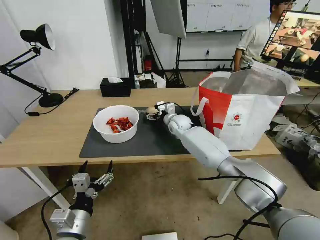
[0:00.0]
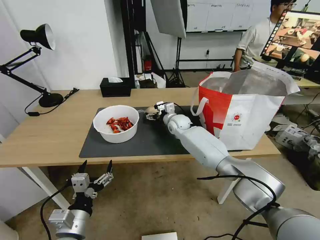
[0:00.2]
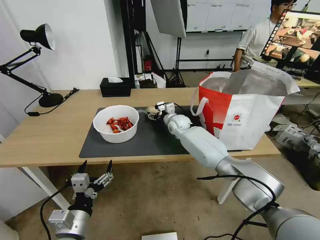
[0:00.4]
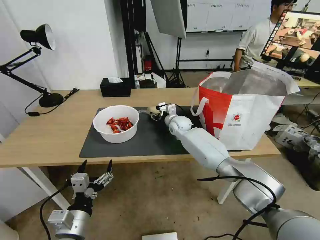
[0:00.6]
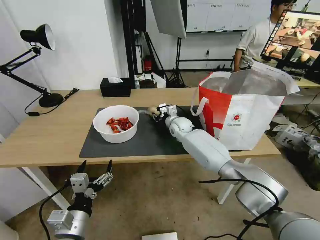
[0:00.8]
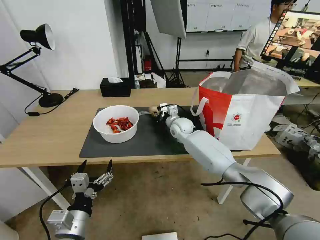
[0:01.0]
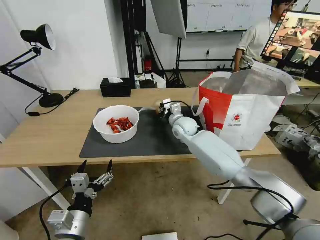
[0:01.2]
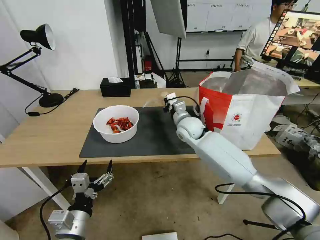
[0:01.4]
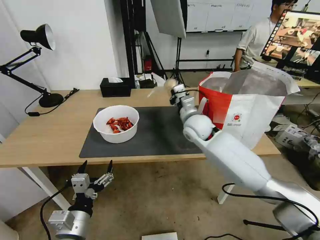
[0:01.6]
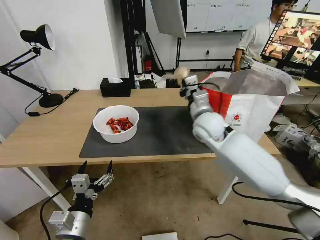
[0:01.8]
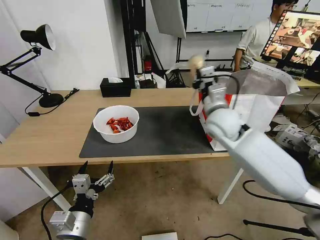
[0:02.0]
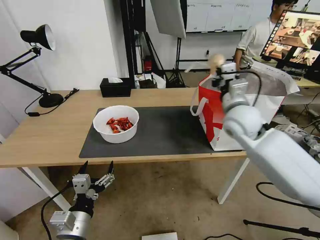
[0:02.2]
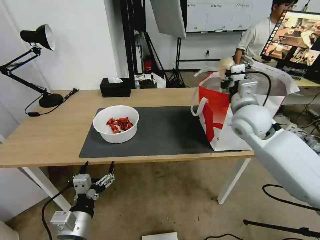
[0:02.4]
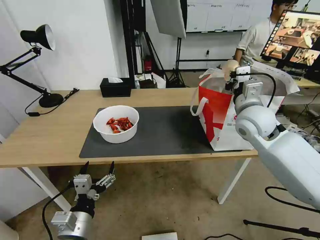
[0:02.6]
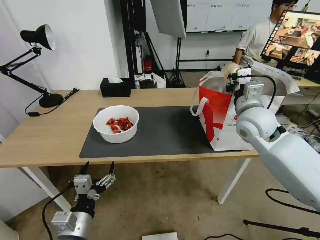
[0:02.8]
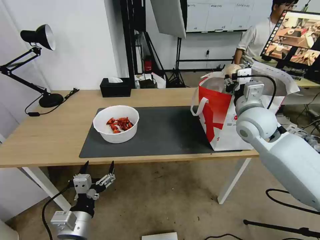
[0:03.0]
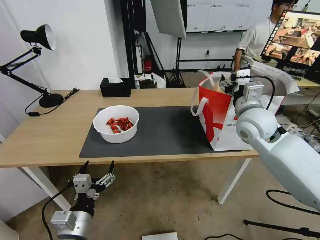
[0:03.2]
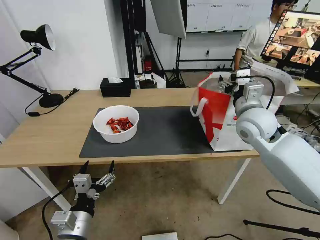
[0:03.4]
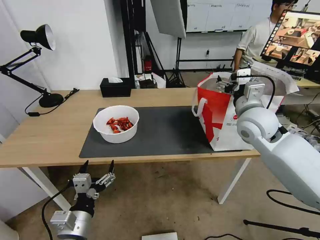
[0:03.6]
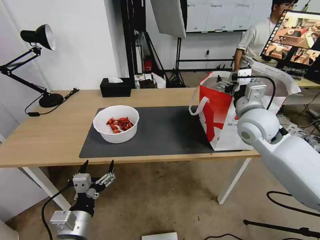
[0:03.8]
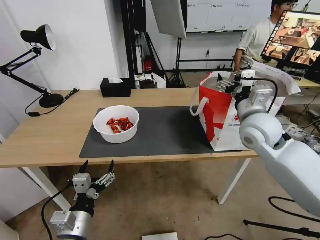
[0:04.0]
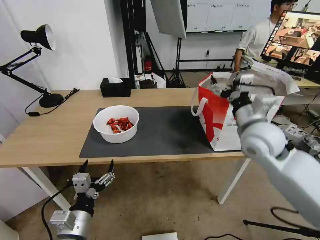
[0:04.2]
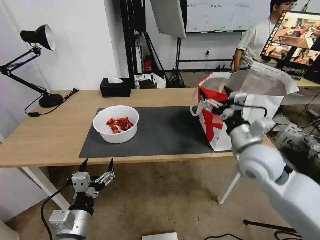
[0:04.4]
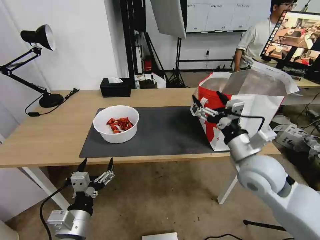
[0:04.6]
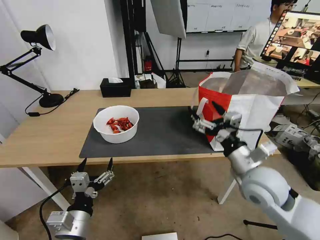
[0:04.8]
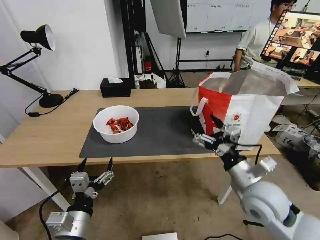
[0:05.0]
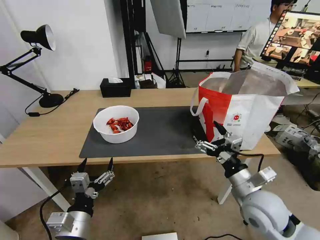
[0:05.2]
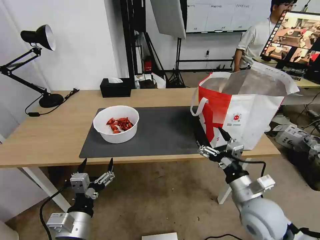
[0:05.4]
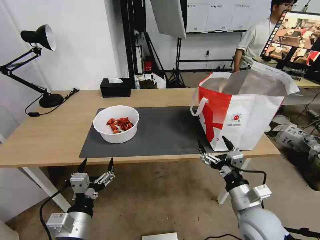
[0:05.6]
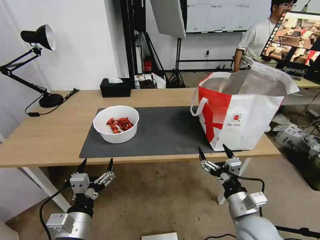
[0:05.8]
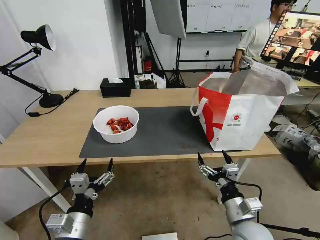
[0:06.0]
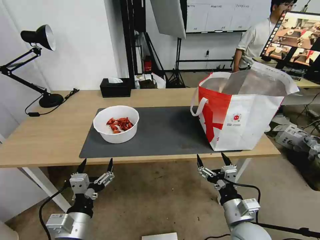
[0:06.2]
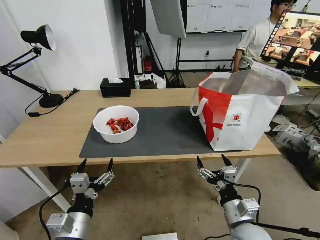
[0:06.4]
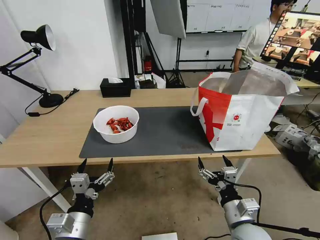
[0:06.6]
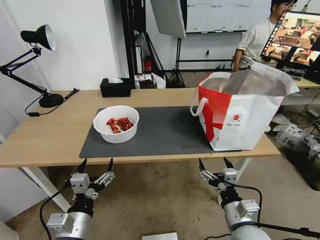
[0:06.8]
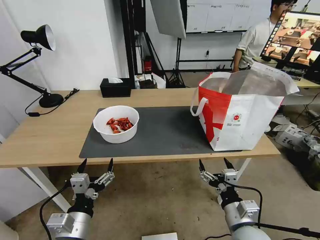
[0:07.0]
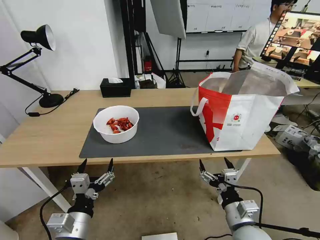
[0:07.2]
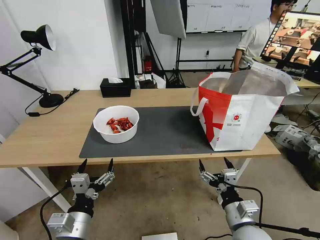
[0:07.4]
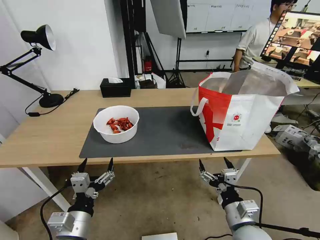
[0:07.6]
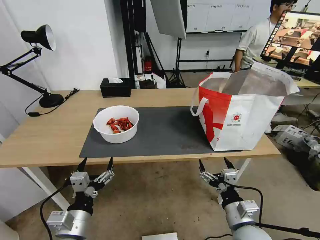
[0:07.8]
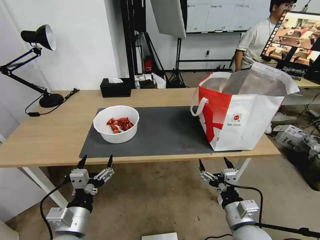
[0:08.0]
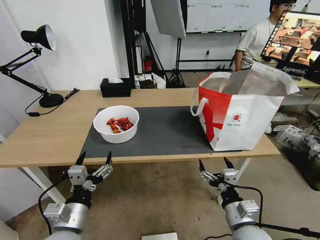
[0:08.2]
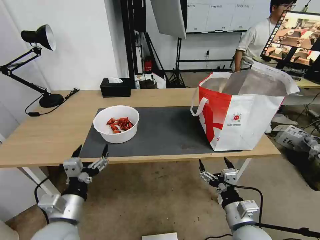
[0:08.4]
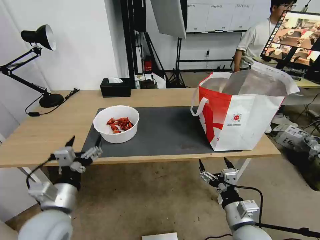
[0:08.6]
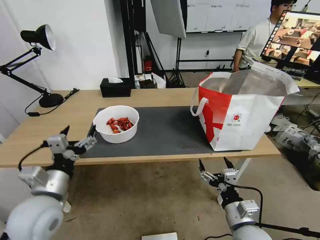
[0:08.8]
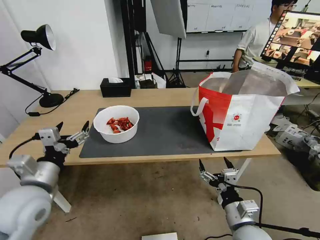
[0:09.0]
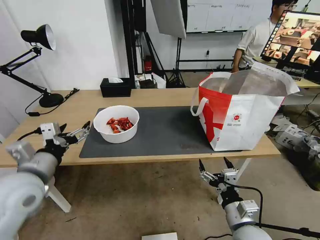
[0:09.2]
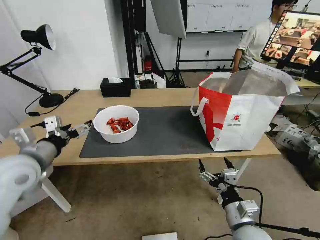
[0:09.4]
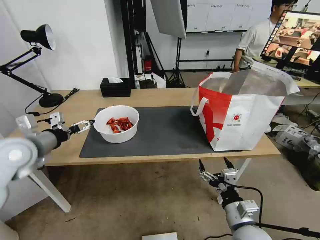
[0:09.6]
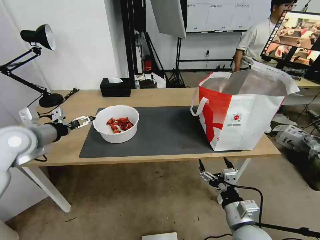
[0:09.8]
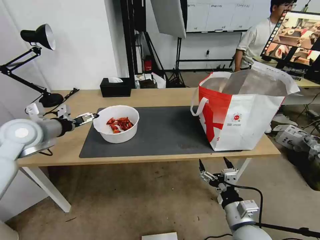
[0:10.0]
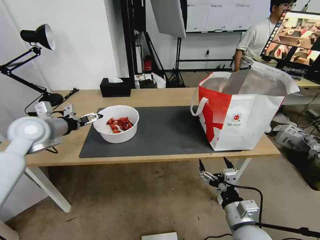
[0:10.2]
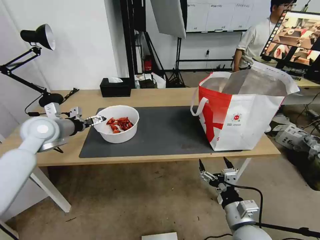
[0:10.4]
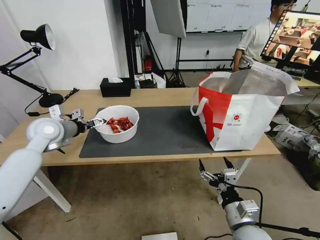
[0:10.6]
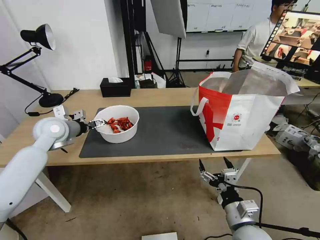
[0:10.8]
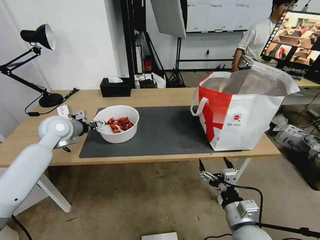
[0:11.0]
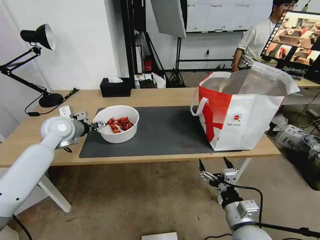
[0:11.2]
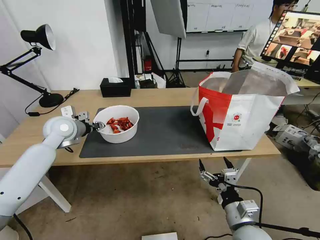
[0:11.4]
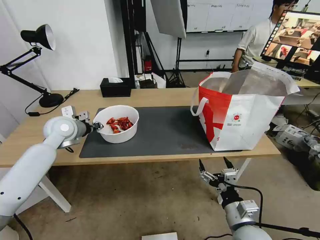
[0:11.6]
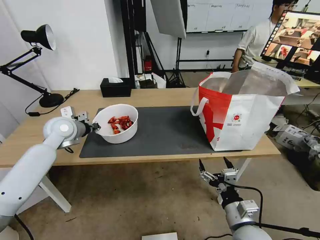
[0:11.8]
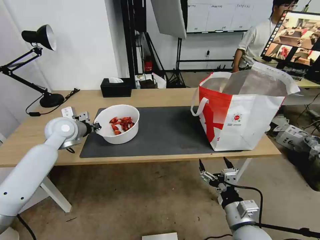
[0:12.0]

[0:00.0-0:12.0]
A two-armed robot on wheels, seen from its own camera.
Task of the whole recording: Pick up the trash from the table and place it into the takeout bag.
0:00.0 to 0:01.6: The right gripper shifts about 15 cm backward and upward, and closes up.
0:01.6 to 0:03.0: The right gripper travels to the right, upward and backward by approximately 15 cm, and opens up.
0:03.0 to 0:04.4: The right gripper is displaced backward by approximately 10 cm, and opens its fingers.
0:04.4 to 0:06.0: The right gripper goes approximately 20 cm downward and backward.
0:06.0 to 0:07.6: The grippers move only a little.
0:07.6 to 0:09.0: The left gripper shifts roughly 15 cm upward, forward and to the left.
0:09.0 to 0:10.4: The left gripper heads forward, covering some 20 cm.
0:10.4 to 0:12.0: The left gripper moves roughly 5 cm, and closes.

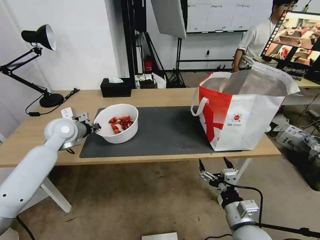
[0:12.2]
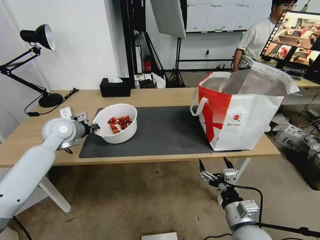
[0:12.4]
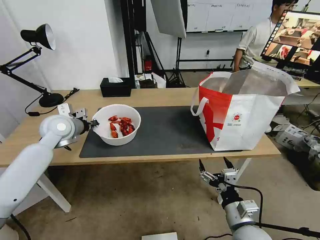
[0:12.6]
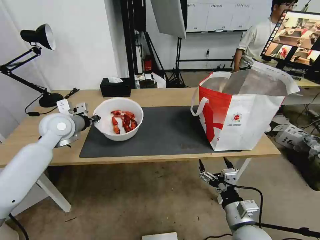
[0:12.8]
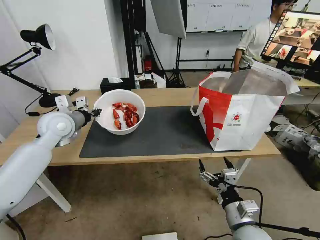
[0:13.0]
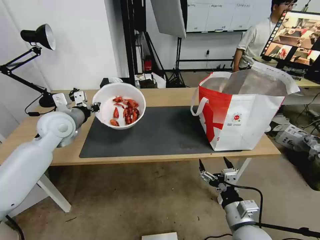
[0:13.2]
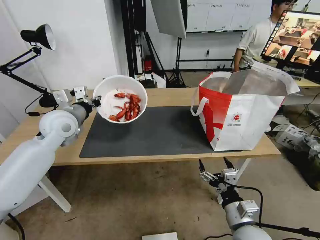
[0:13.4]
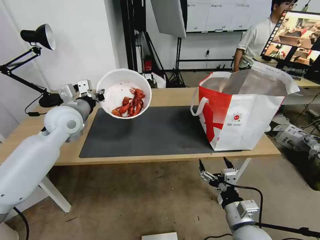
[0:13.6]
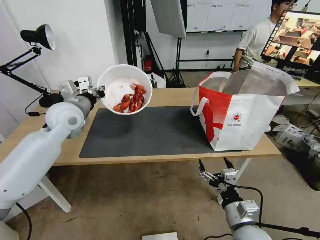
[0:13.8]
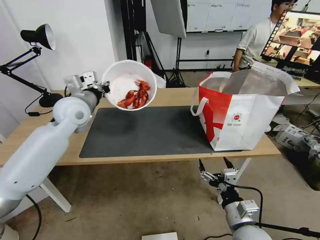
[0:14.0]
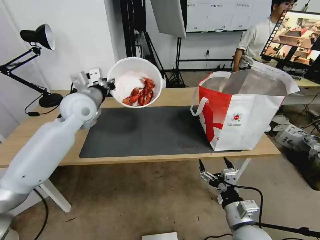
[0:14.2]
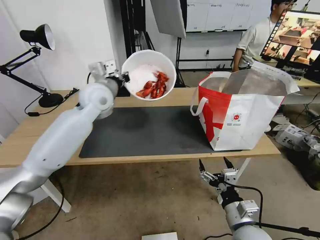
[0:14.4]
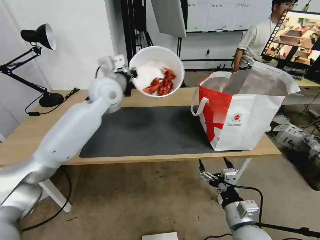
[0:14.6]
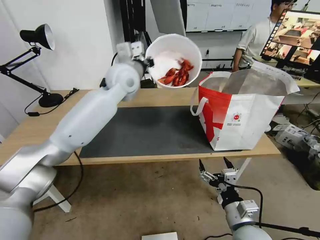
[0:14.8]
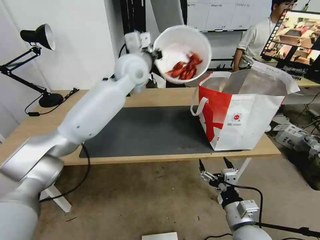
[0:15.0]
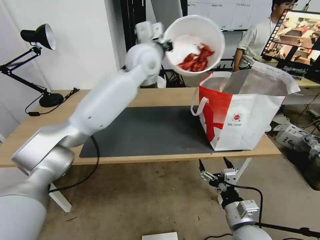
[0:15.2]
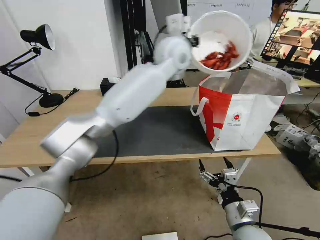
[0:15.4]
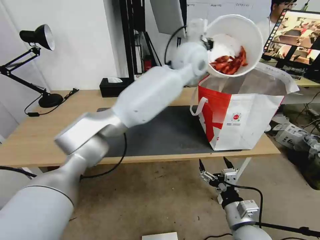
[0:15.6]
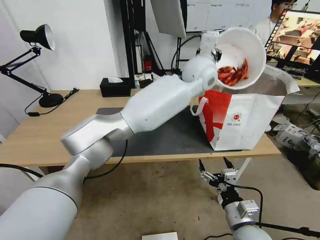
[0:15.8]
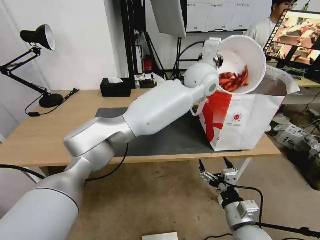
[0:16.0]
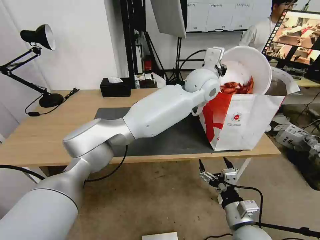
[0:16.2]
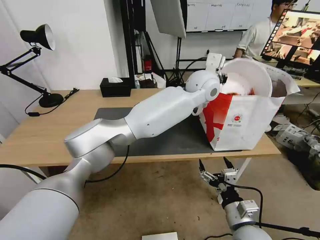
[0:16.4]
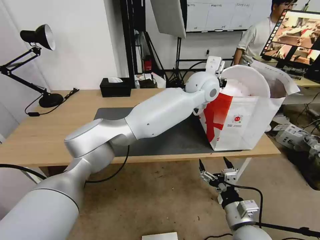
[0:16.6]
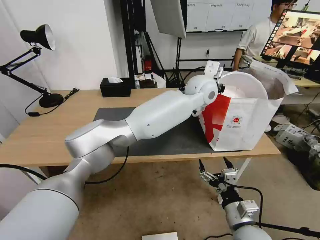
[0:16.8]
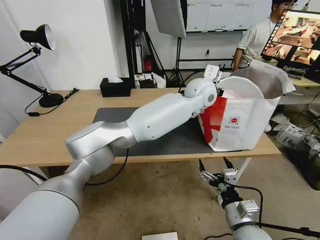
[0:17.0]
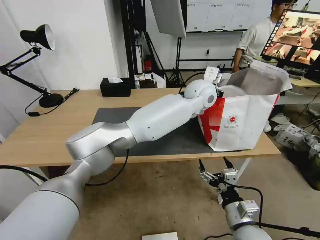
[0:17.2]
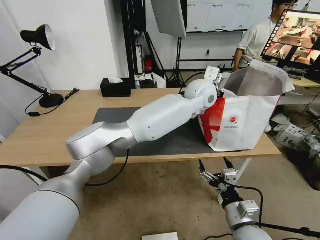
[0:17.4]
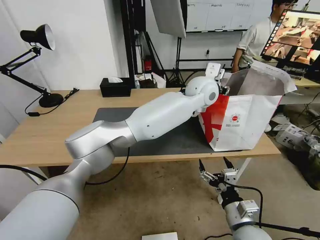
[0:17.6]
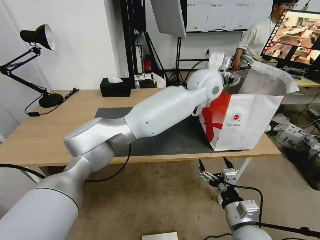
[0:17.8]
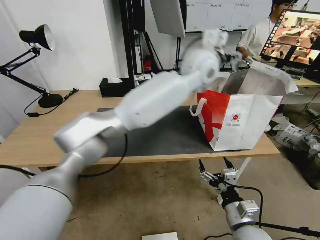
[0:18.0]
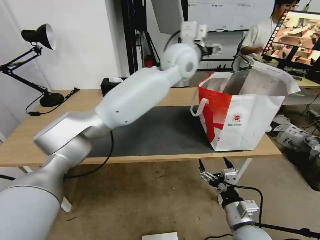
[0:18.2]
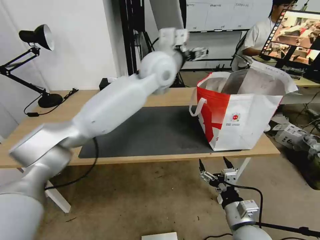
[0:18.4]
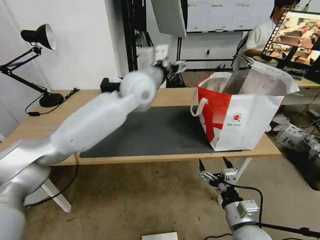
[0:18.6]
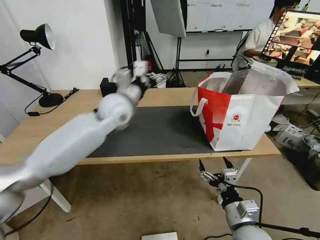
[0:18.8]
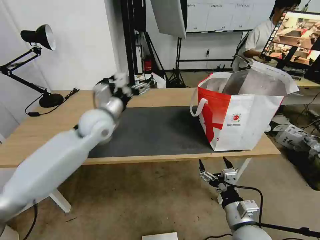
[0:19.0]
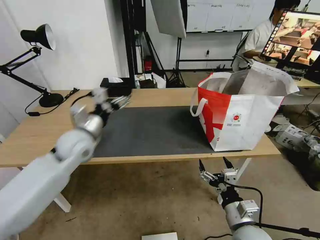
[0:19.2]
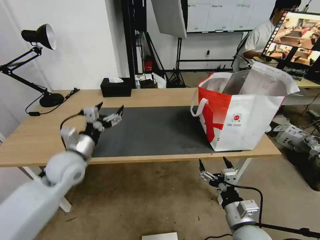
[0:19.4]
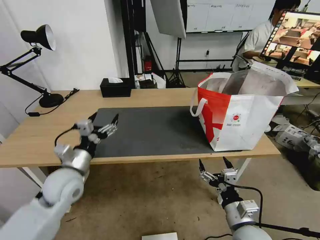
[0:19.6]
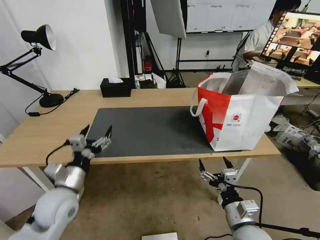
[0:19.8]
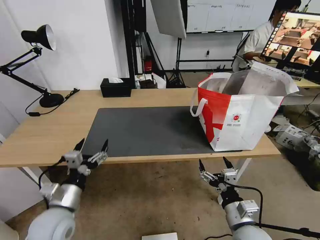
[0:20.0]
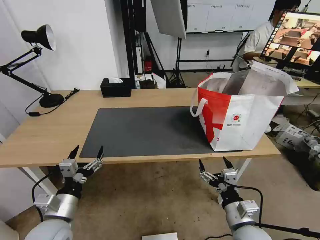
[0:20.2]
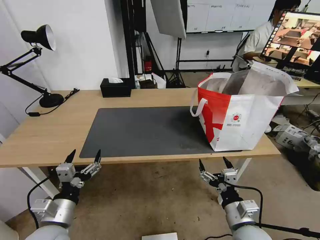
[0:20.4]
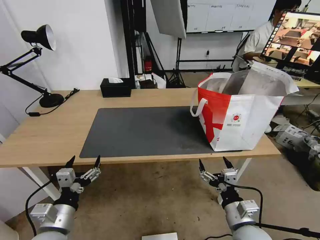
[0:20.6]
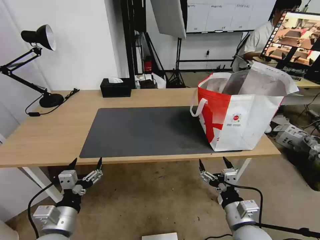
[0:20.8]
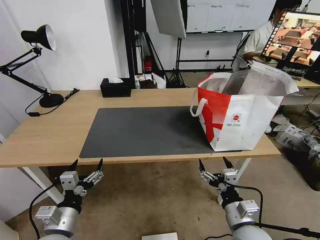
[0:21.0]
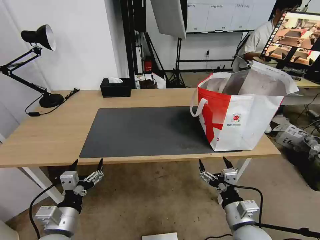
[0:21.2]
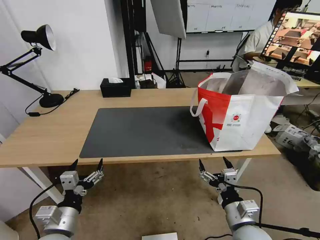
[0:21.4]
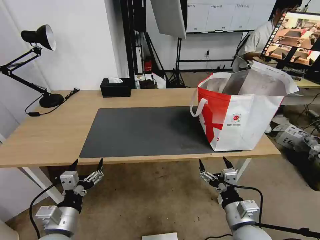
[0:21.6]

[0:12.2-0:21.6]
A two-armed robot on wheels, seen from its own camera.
Task of the whole recording: Pick up the trash from the table and place it into the takeout bag.
0:12.2 to 0:13.8: The left gripper travels upward and to the right by approximately 10 cm.
0:13.8 to 0:15.4: The left gripper goes about 35 cm to the right and upward.
0:15.4 to 0:17.0: The left gripper is displaced downward and to the right by some 15 cm.
0:17.0 to 0:18.4: The left gripper heads to the left and upward, covering roughly 15 cm, and opens.
0:18.4 to 0:20.0: The left gripper travels backward, downward and to the left by about 50 cm.
0:20.0 to 0:21.6: The left gripper heads backward, covering approximately 5 cm.

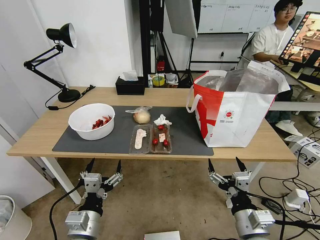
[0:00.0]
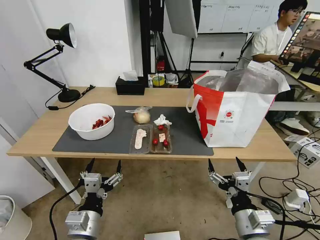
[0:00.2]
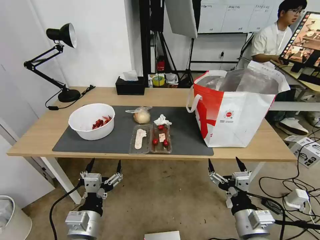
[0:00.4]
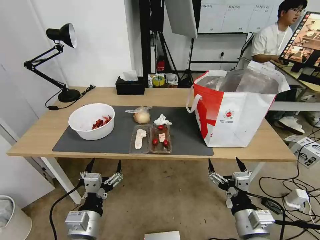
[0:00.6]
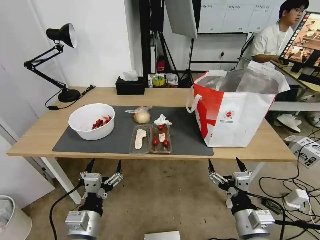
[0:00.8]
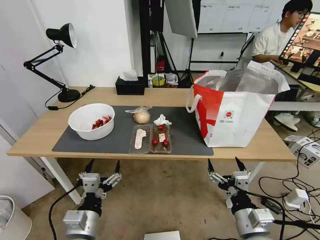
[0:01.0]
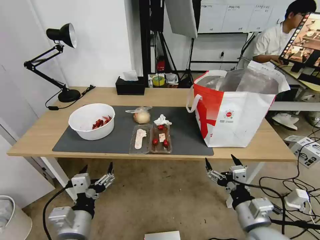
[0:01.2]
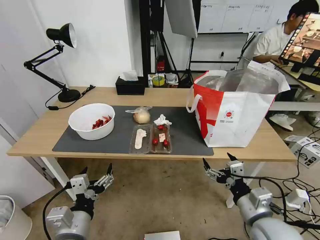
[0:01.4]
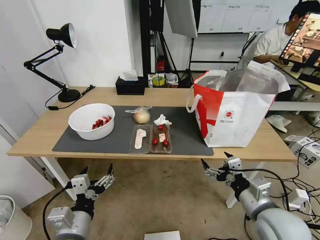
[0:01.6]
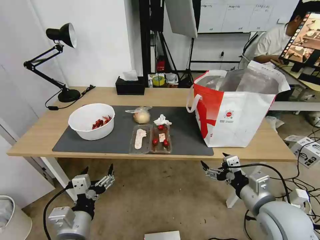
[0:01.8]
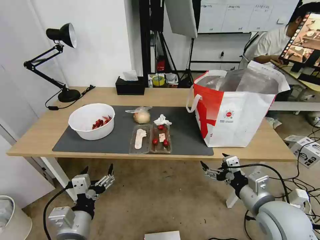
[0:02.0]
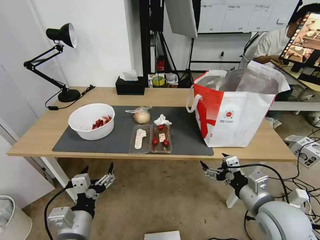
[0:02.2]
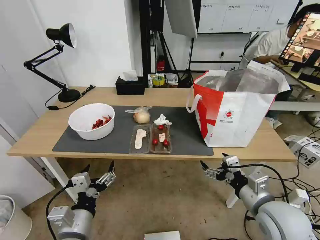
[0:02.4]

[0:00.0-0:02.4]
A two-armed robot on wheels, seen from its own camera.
Task of the whole recording: Pick up the trash from the table and place it into the takeout bag.
0:01.2 to 0:02.4: The right gripper moves approximately 5 cm.
